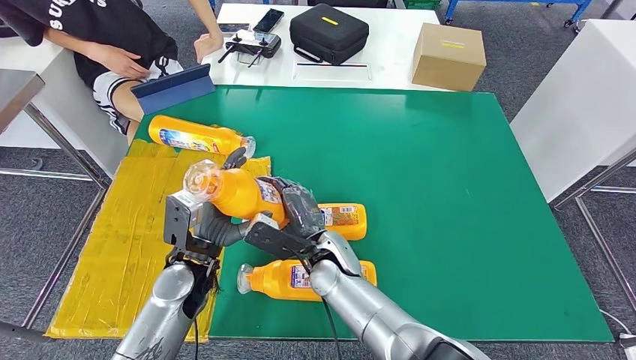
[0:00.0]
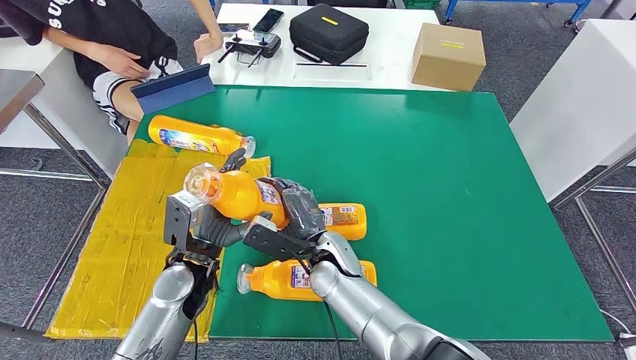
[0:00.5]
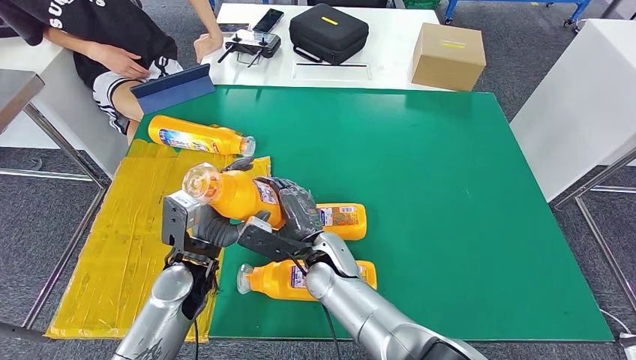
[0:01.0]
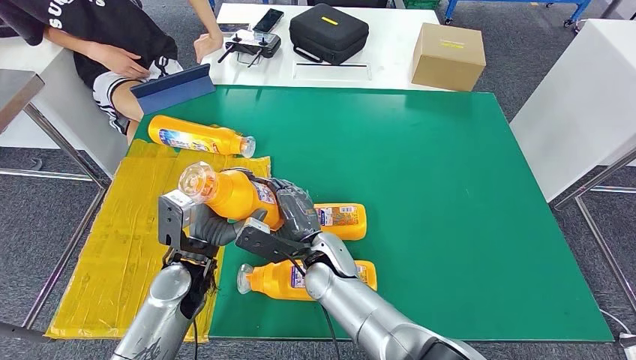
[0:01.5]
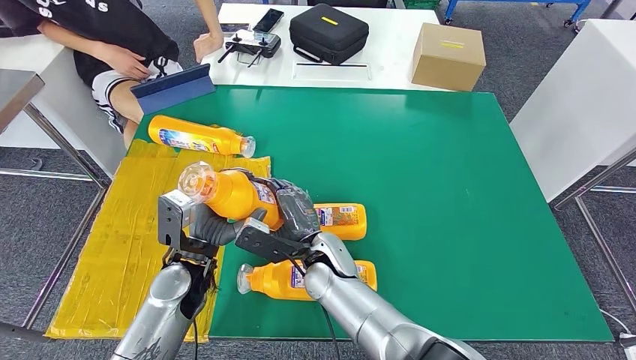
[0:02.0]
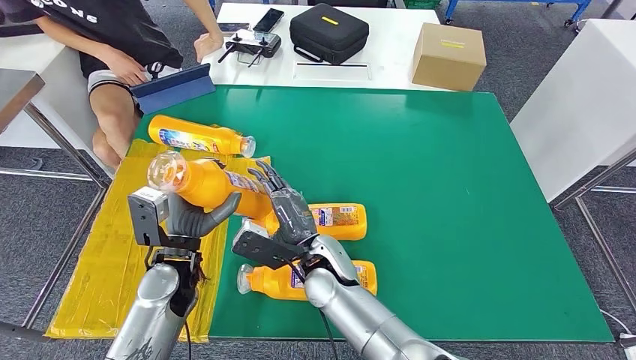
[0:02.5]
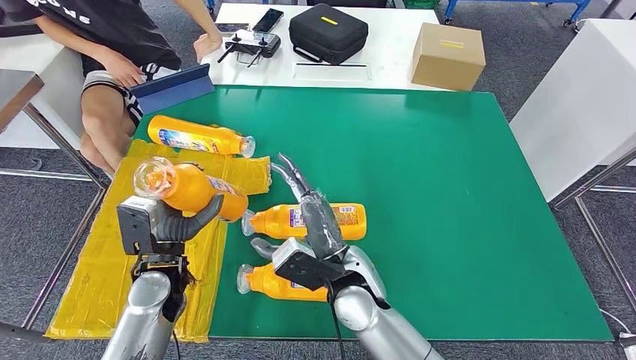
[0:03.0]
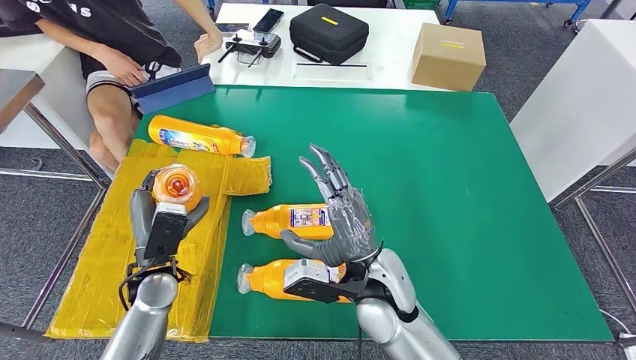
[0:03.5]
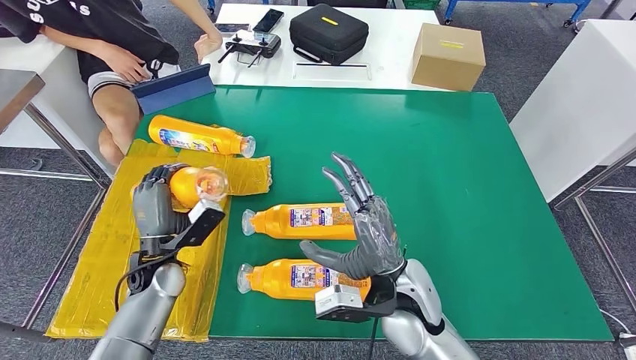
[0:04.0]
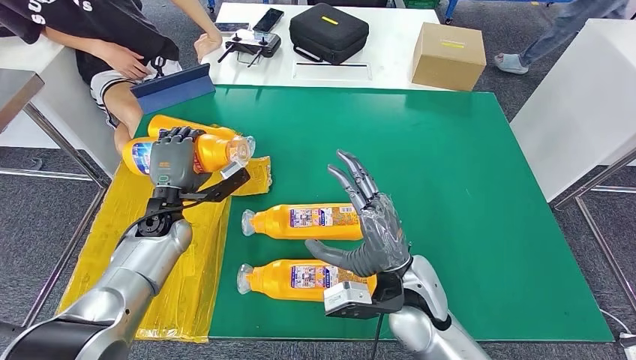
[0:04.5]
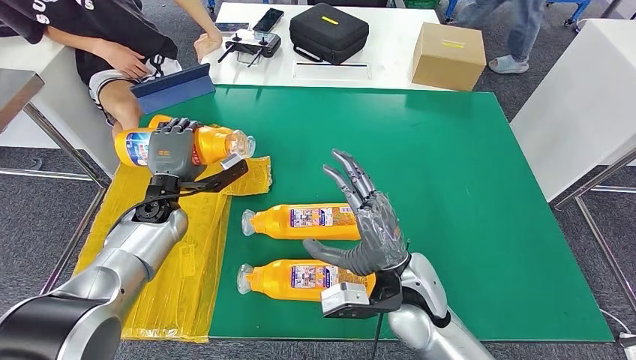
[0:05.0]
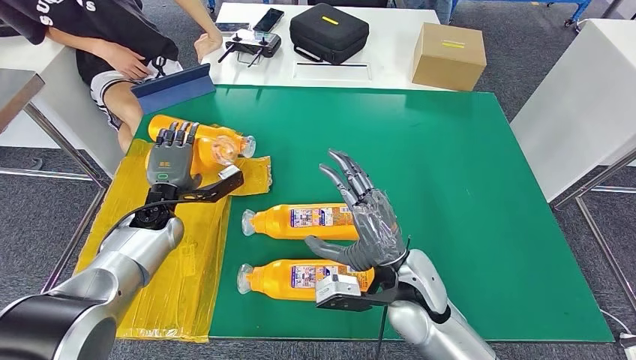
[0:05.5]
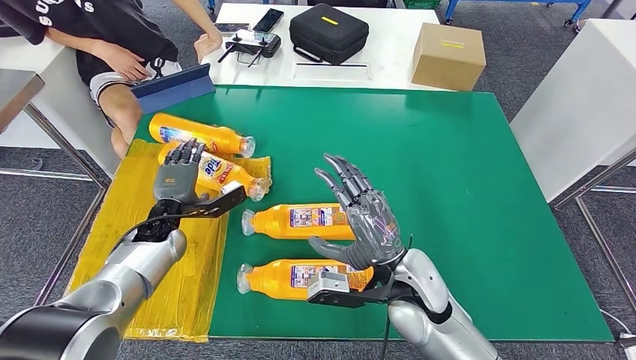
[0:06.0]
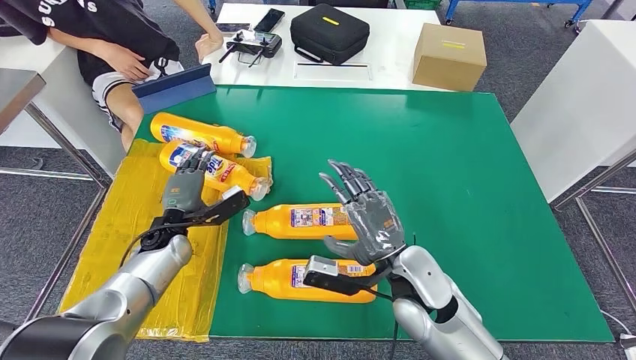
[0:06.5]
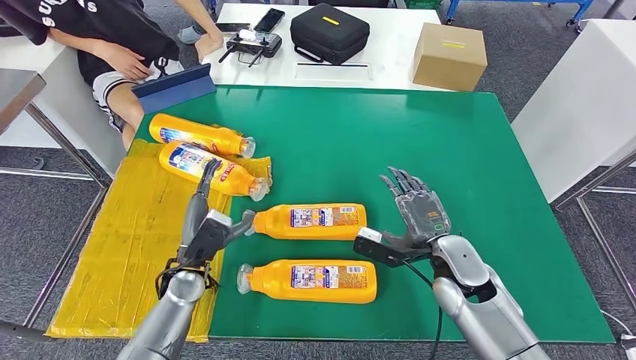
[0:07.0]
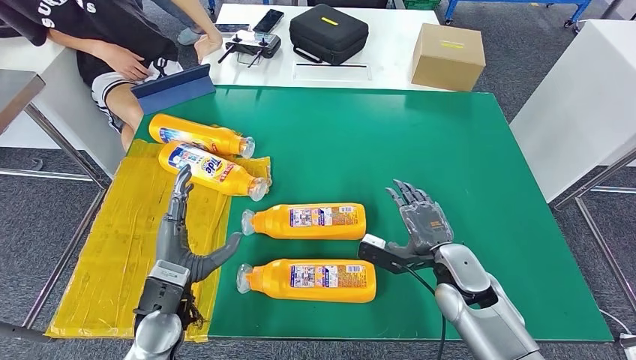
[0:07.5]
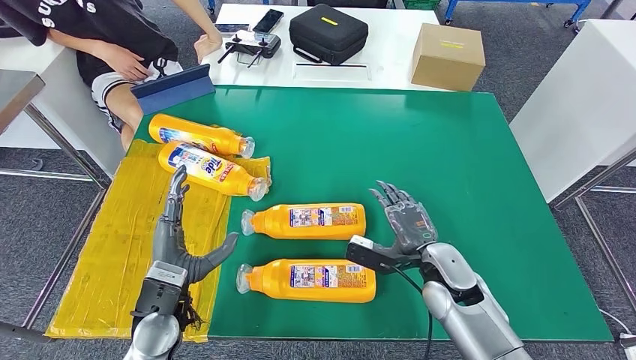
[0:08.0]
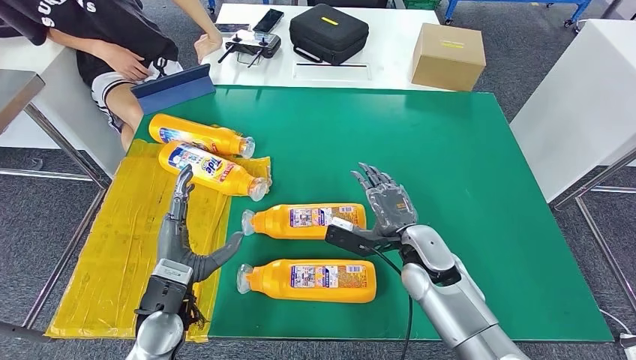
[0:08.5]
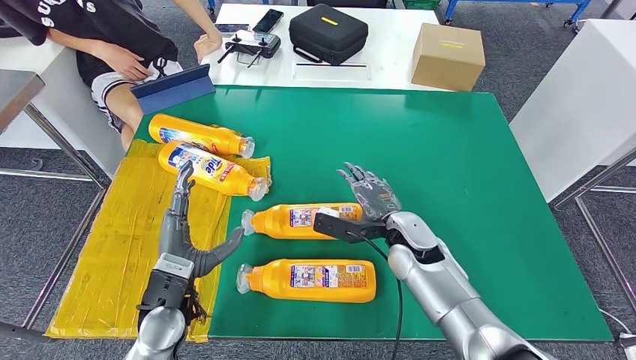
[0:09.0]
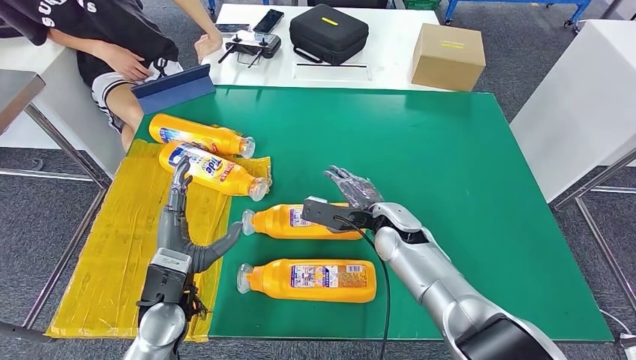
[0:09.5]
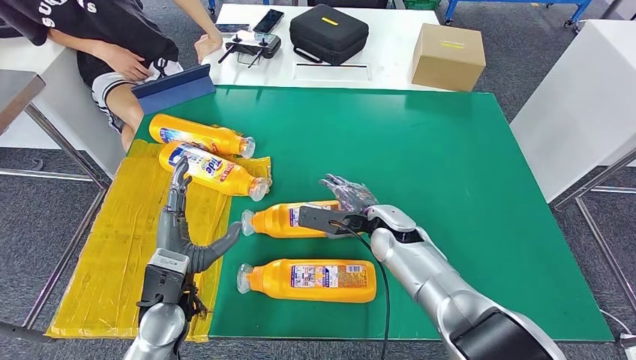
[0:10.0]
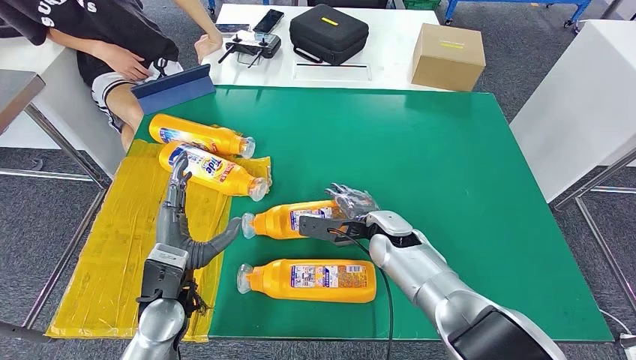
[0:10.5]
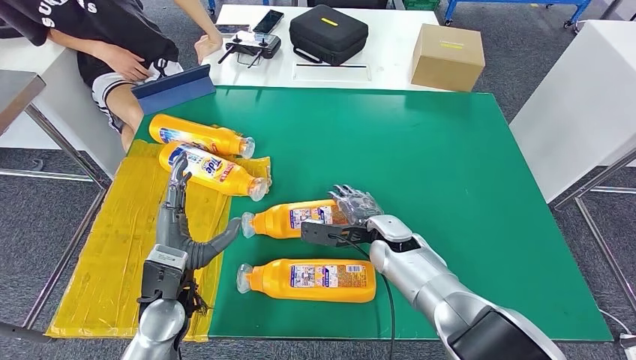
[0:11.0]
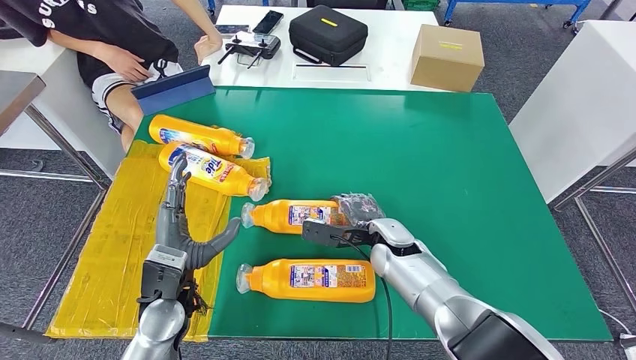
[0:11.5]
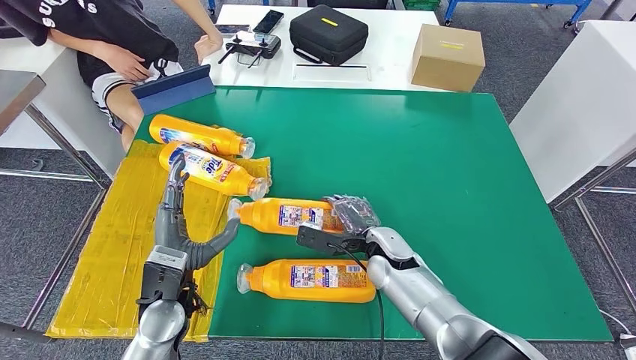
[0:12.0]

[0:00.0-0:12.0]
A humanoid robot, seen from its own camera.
Step, 0:00.0 to 0:06.0: Flip the fast-moving consumer goods bottle to the front side.
0:00.0 to 0:02.0: Both hands stay about where they are.
0:02.0 to 0:04.0: The left hand shifts some 5 cm to the left. The right hand moves to the right, backward and upward, roughly 15 cm.
0:04.0 to 0:06.0: The left hand moves forward, some 10 cm.
0:06.0 to 0:08.0: The left hand heads backward, covering roughly 15 cm. The right hand moves to the right and downward, approximately 10 cm.
0:08.0 to 0:10.0: The right hand shifts some 15 cm to the left and forward.
0:10.0 to 0:12.0: The hands move only a little.

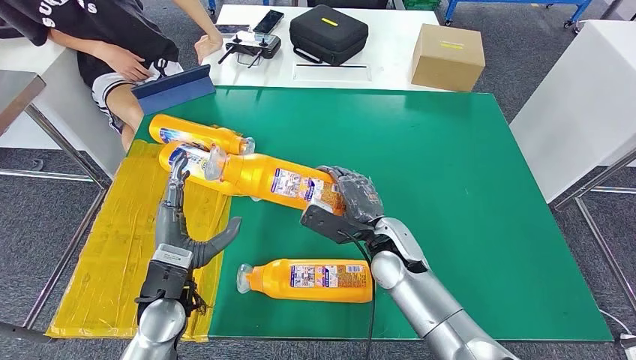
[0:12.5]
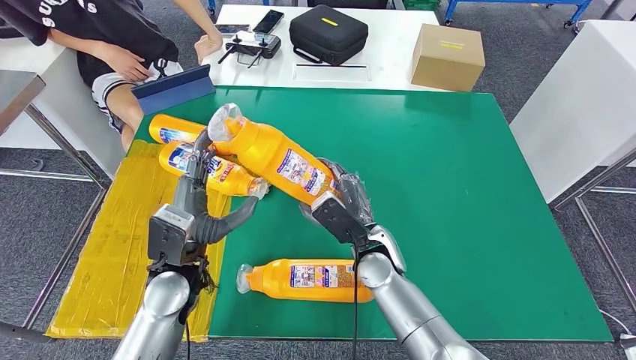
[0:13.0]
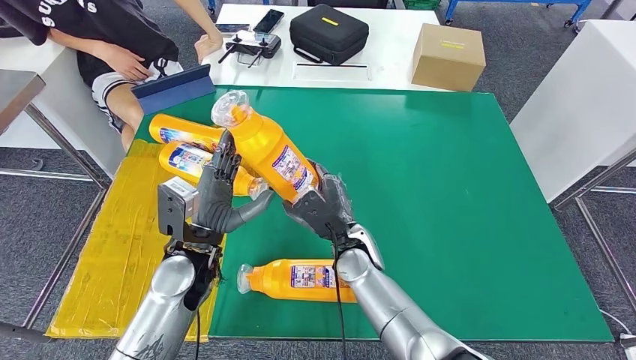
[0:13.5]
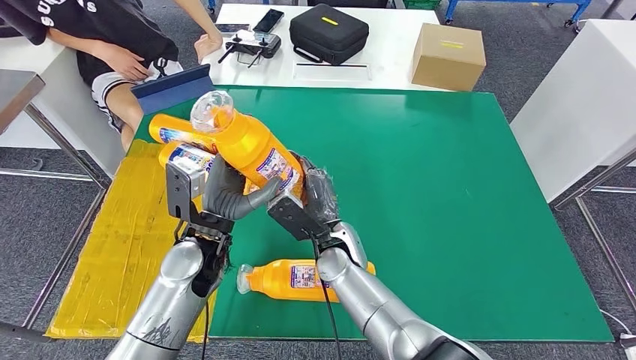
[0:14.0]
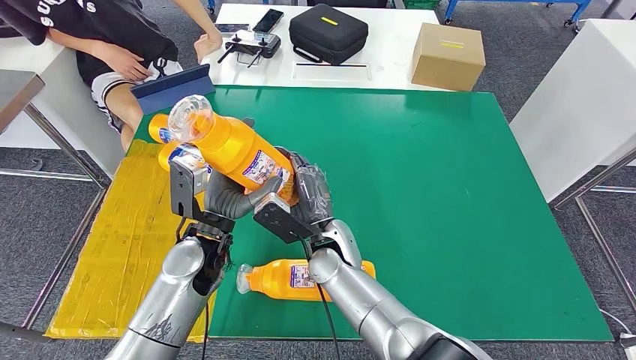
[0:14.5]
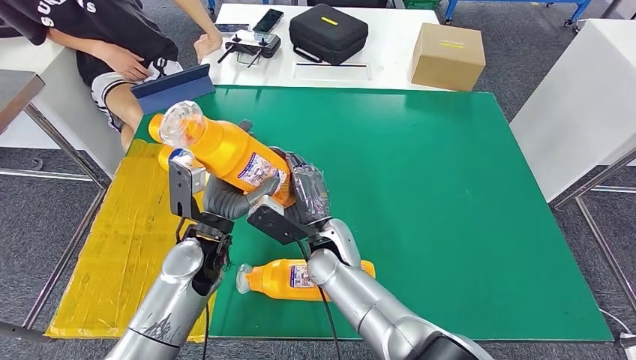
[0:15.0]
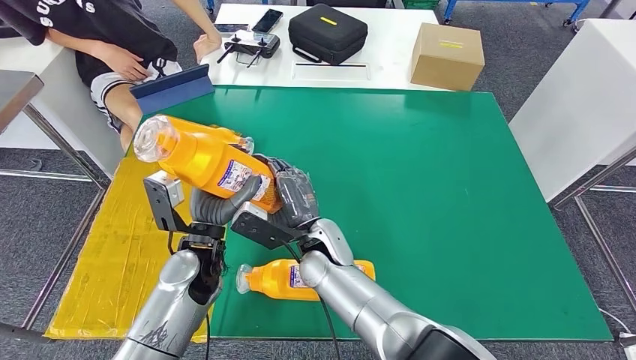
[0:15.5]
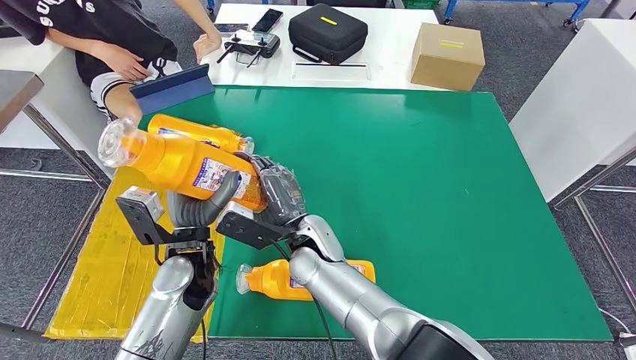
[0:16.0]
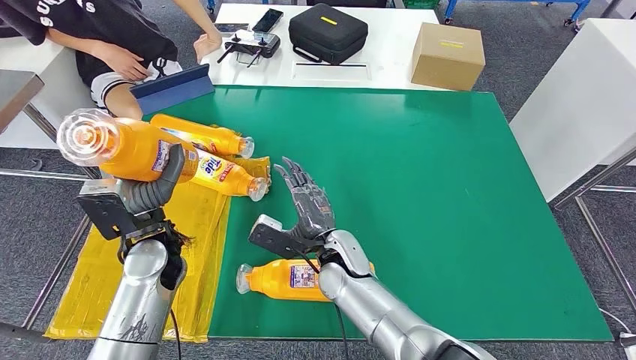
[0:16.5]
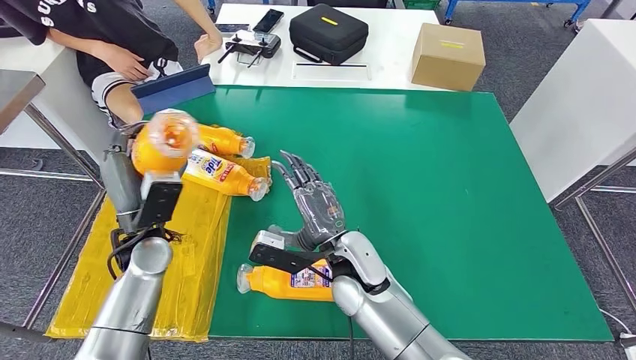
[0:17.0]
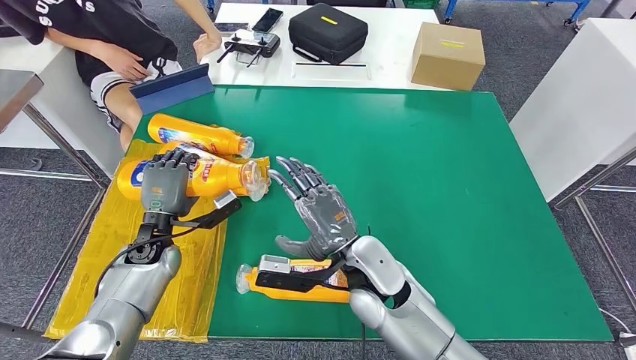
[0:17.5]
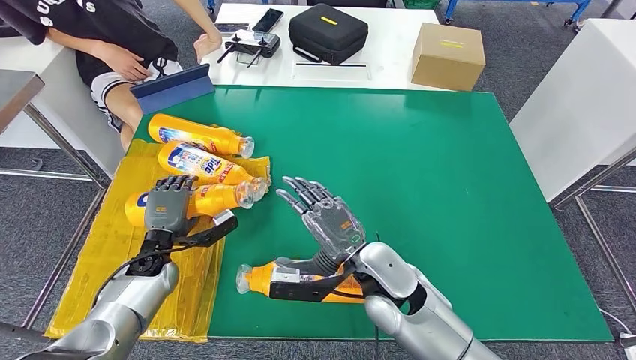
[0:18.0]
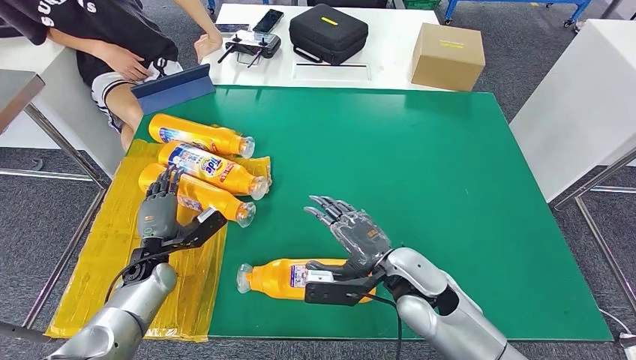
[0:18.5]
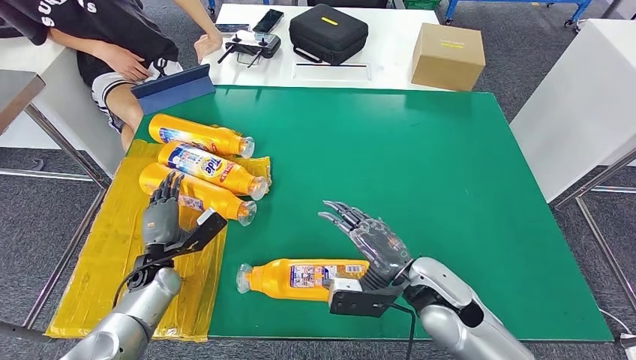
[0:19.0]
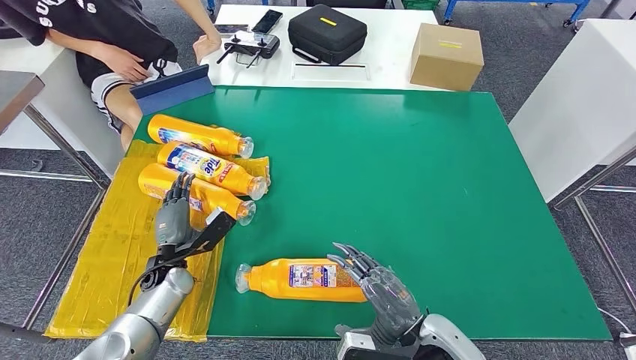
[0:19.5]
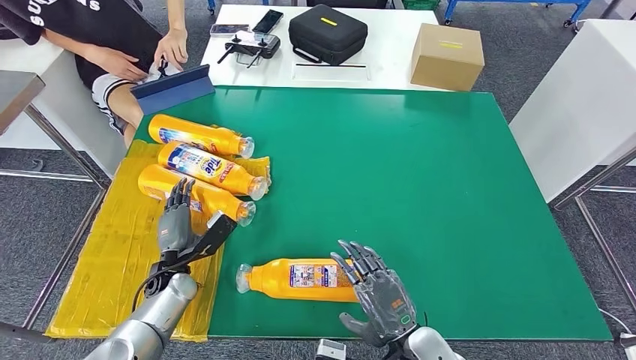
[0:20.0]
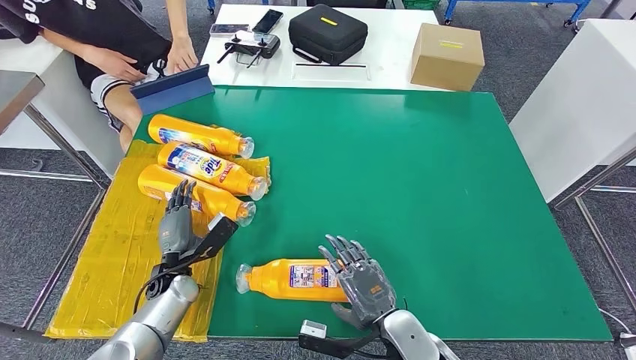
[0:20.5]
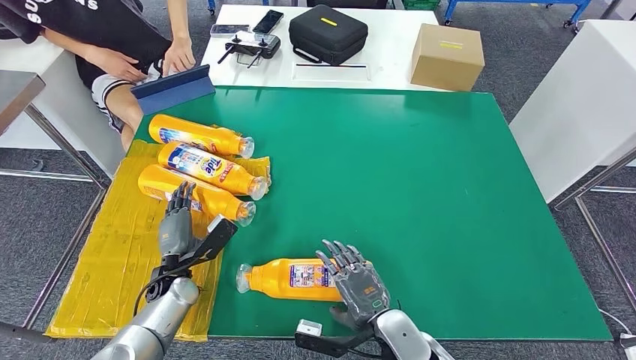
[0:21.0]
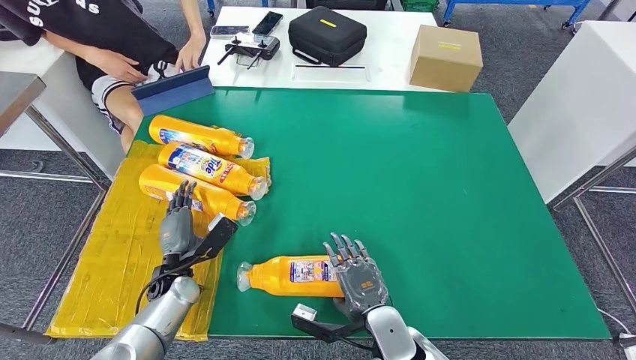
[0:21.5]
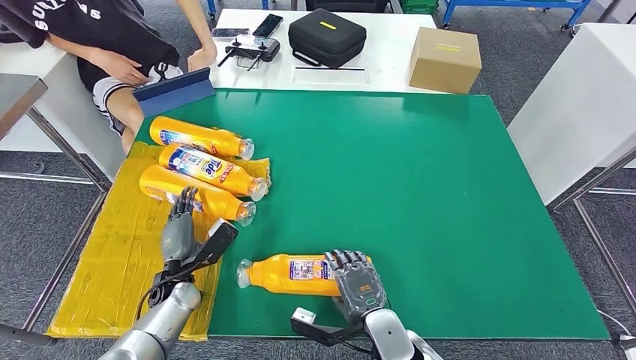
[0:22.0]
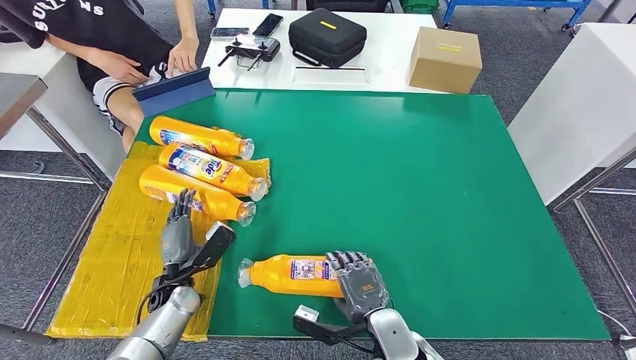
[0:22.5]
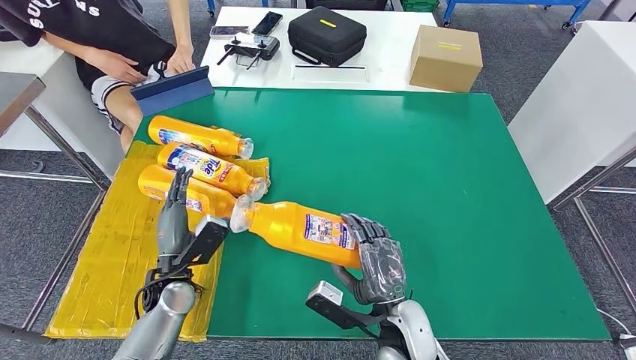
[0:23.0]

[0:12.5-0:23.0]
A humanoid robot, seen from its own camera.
Step, 0:14.5 to 0:20.5: Flip the fast-moving consumer goods bottle to the front side.
0:12.5 to 0:14.5: The left hand is displaced forward and to the right by some 10 cm. Meanwhile the right hand travels to the left by about 10 cm.
0:14.5 to 0:16.5: The left hand goes about 10 cm to the left.
0:16.5 to 0:19.0: The left hand heads downward and to the left, covering some 15 cm. The right hand travels to the right and backward by some 15 cm.
0:19.0 to 0:21.0: The right hand moves downward, backward and to the left, approximately 10 cm.
0:21.0 to 0:23.0: The left hand moves some 5 cm.
